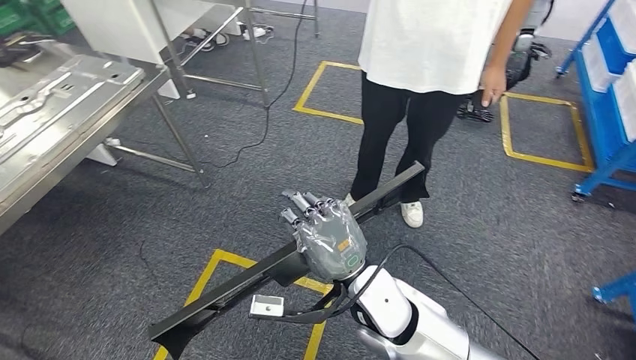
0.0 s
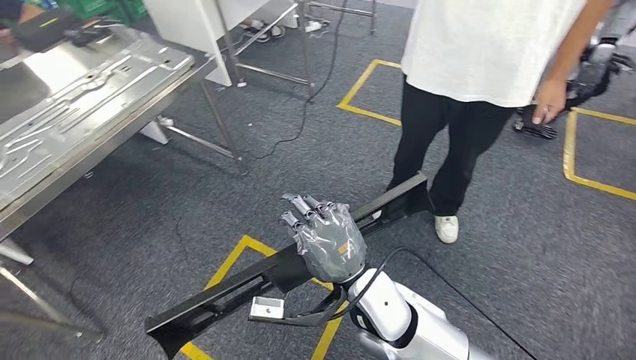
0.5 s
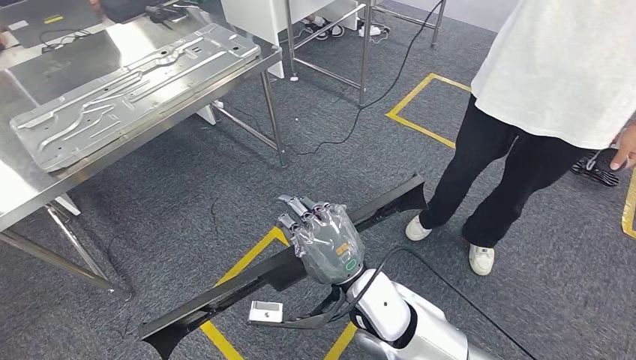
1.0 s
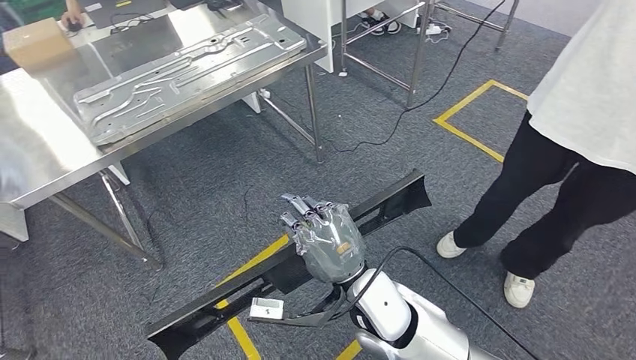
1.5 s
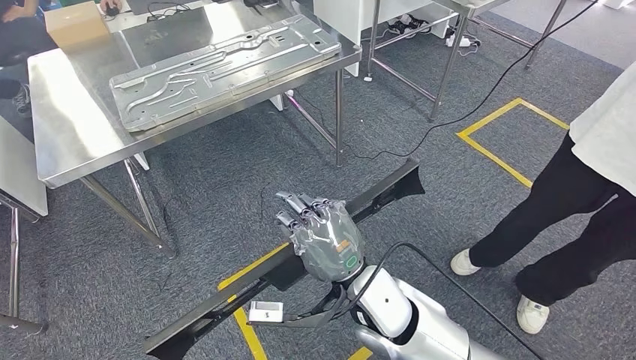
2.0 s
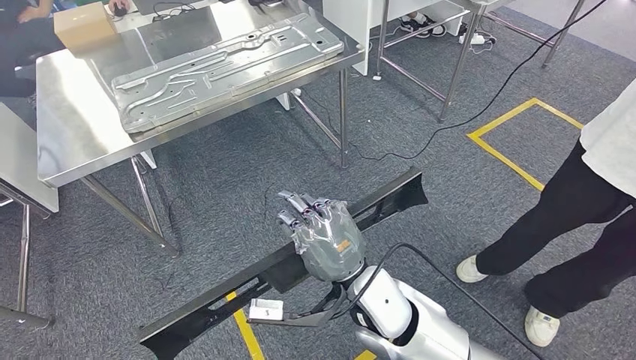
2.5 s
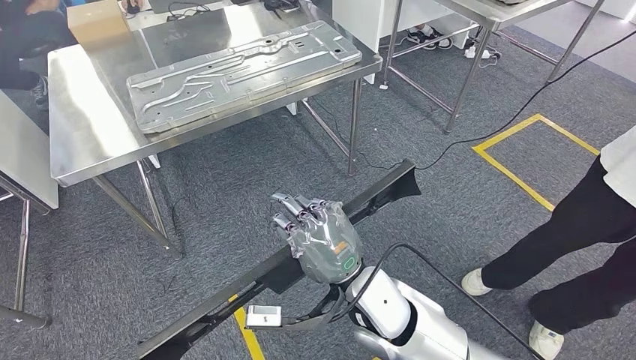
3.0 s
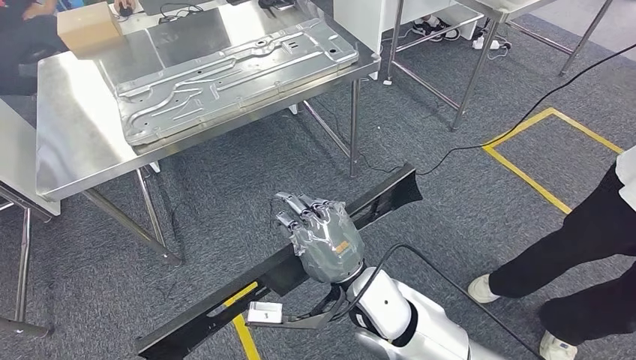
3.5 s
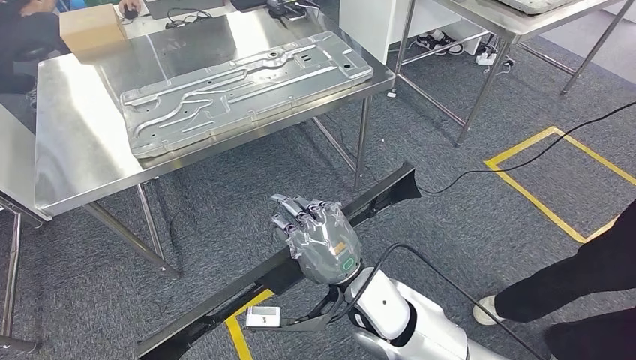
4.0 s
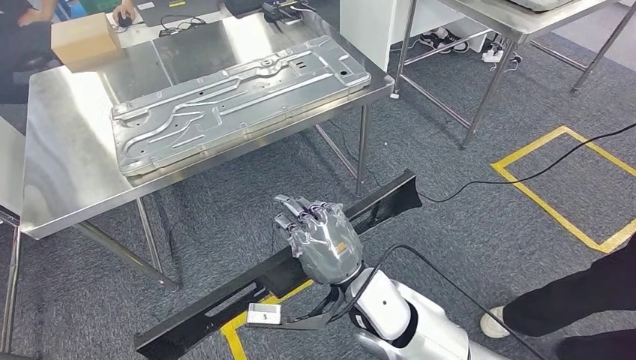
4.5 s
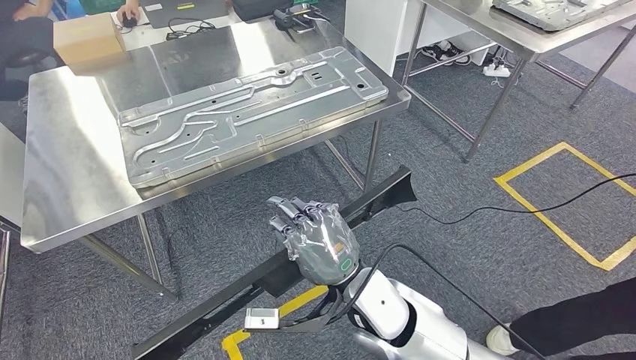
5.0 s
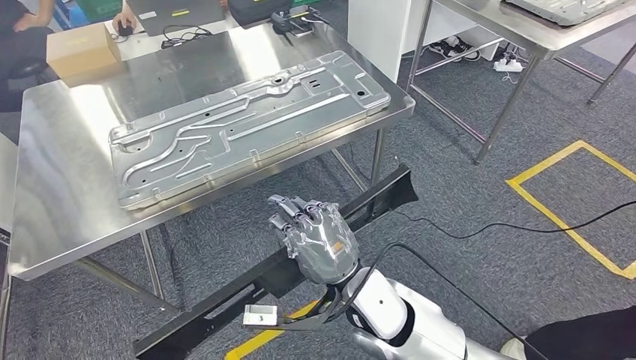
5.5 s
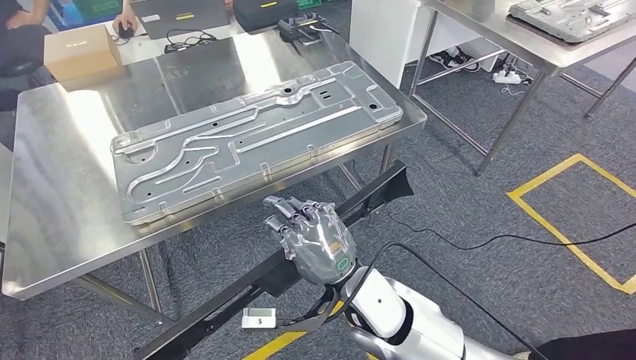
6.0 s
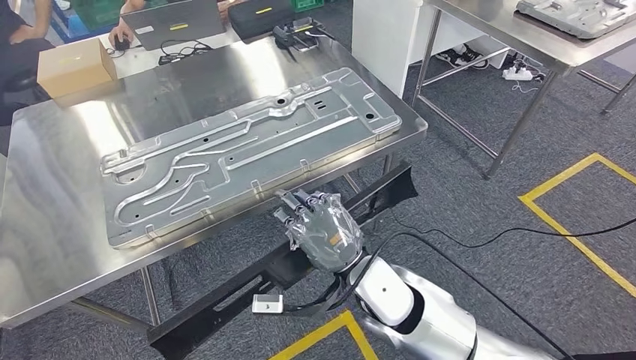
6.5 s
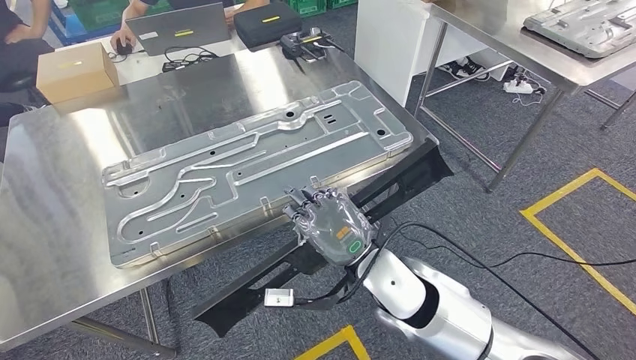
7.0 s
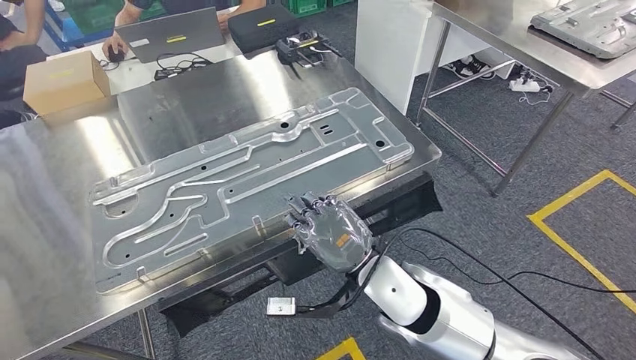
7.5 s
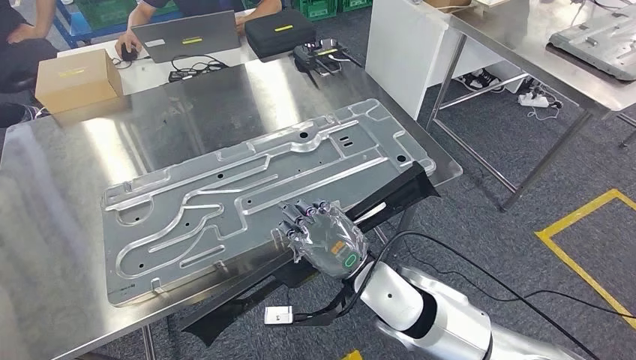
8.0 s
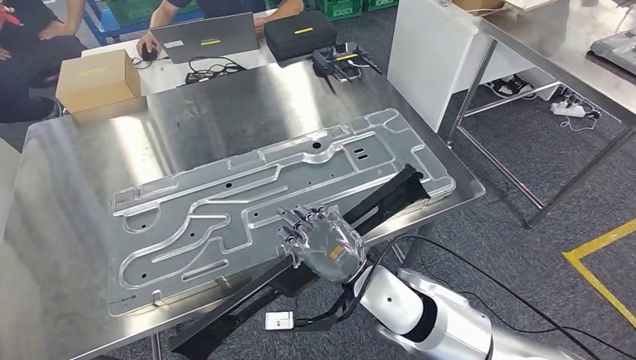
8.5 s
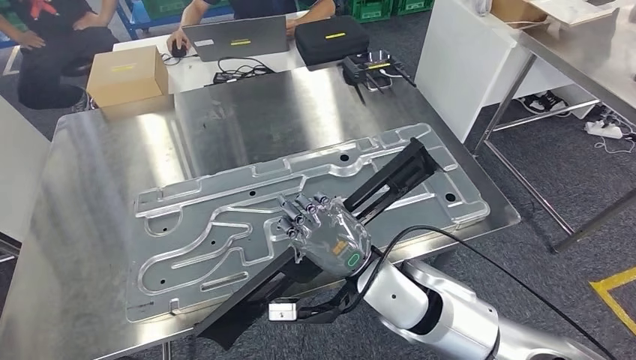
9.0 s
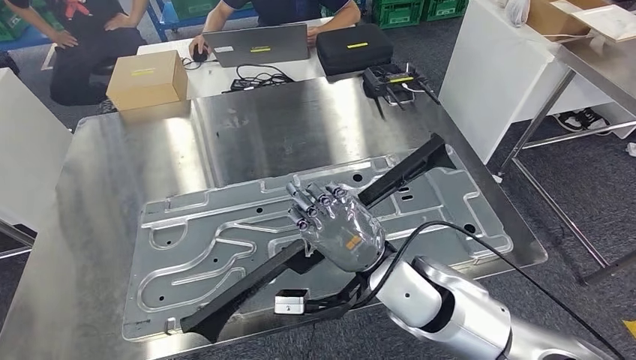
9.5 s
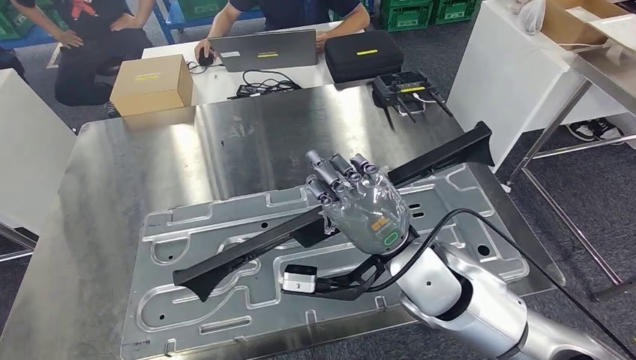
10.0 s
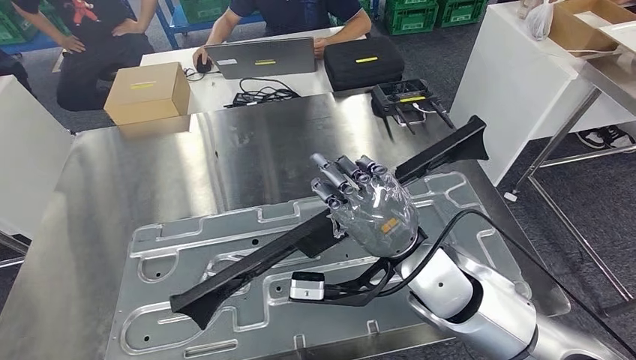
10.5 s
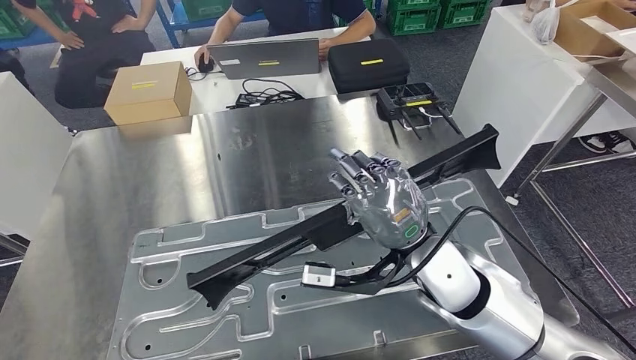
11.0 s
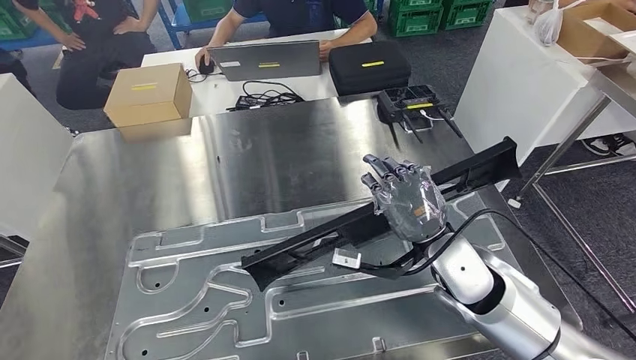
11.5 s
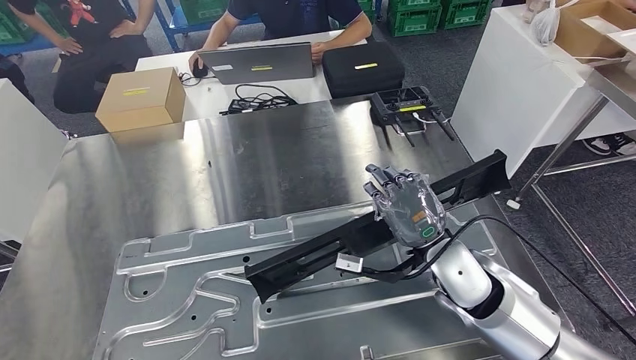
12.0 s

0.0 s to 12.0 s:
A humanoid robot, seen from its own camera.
Step, 0.0 to 7.0 s: Move the large parts to the workbench.

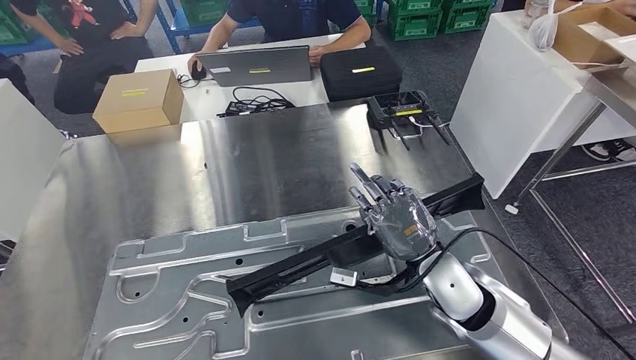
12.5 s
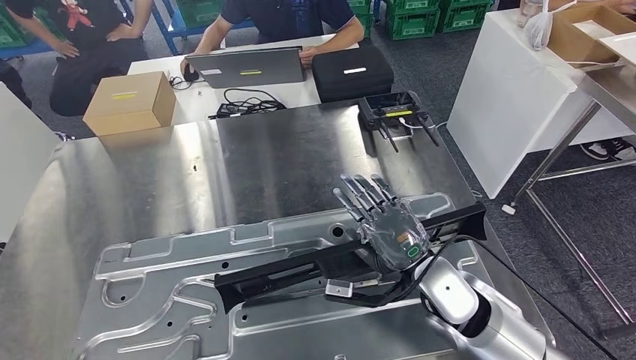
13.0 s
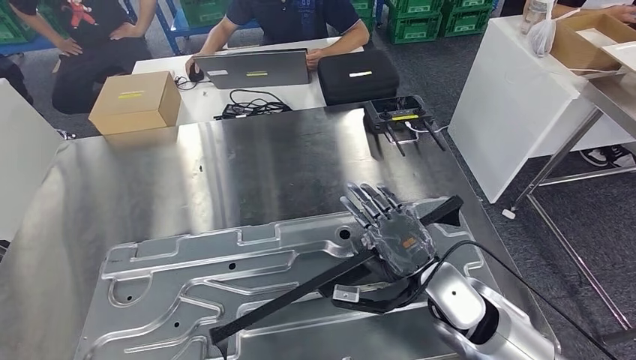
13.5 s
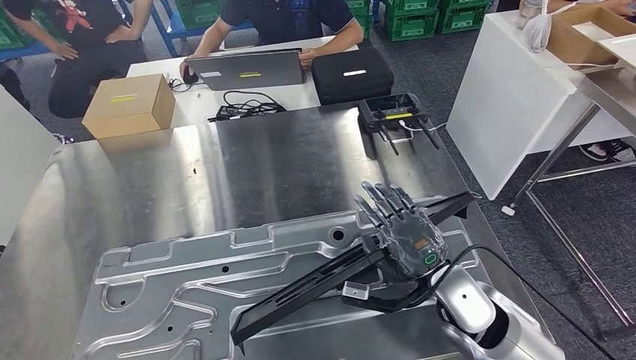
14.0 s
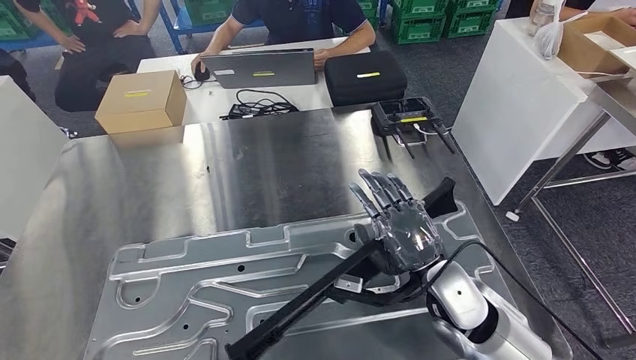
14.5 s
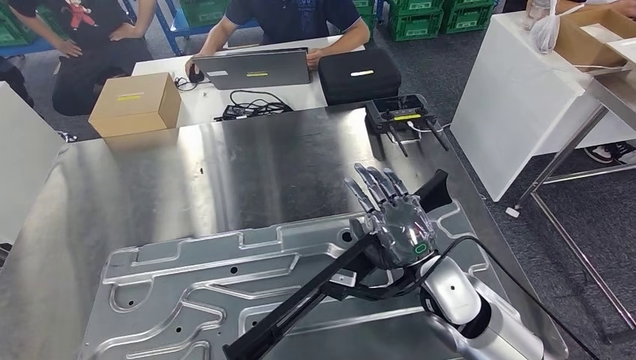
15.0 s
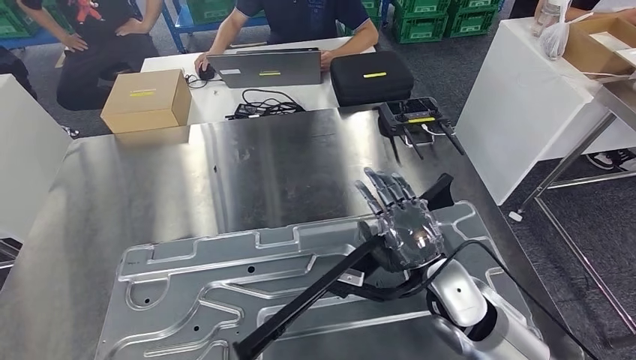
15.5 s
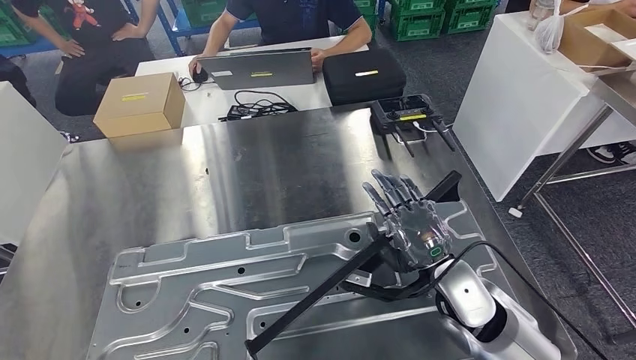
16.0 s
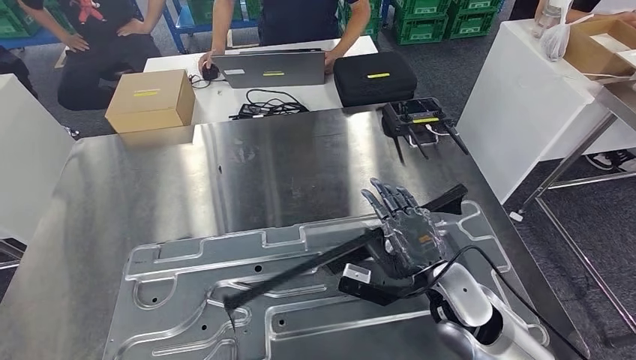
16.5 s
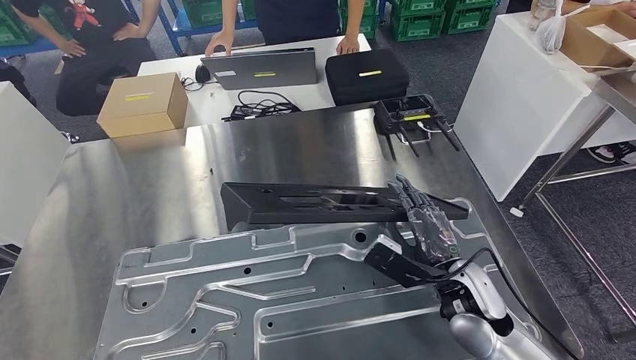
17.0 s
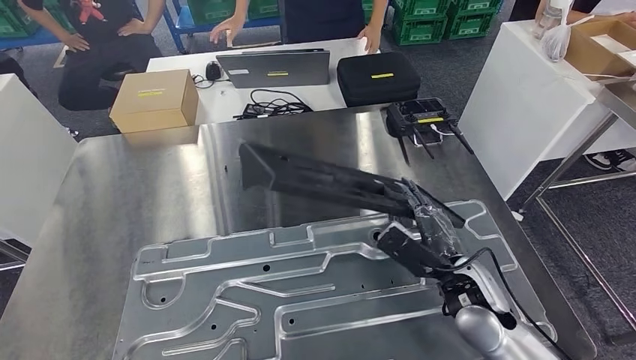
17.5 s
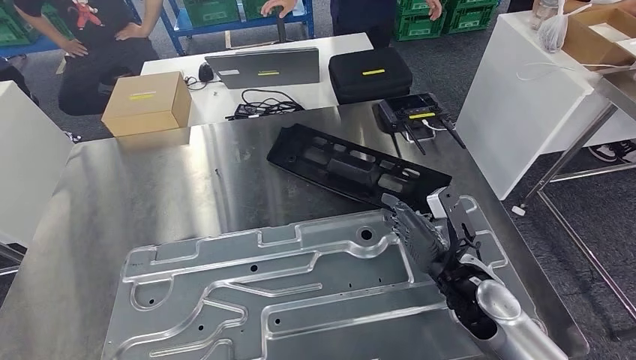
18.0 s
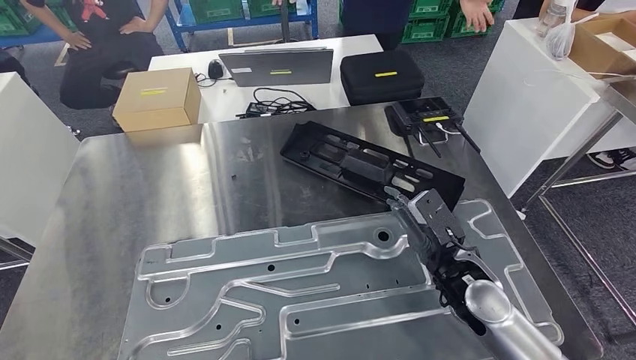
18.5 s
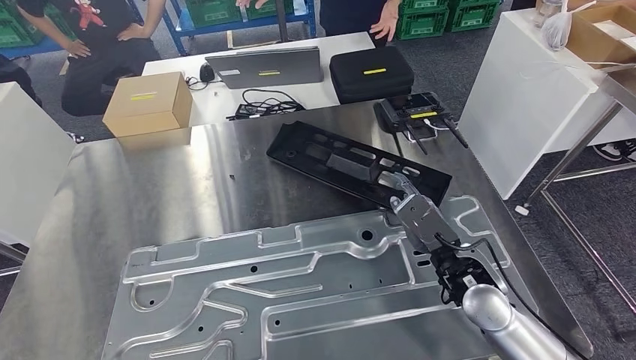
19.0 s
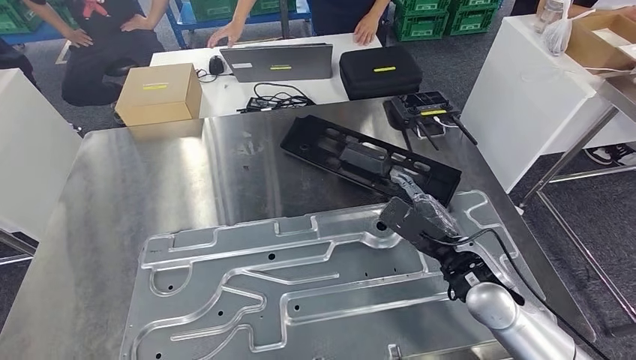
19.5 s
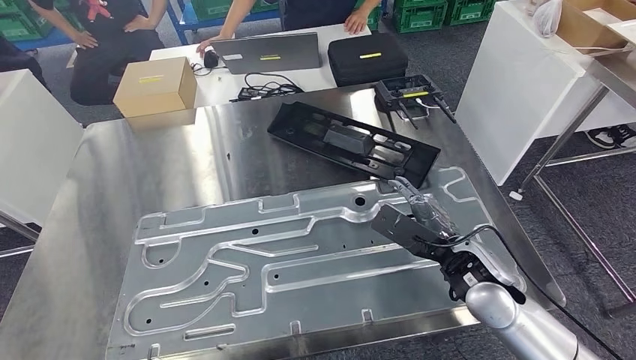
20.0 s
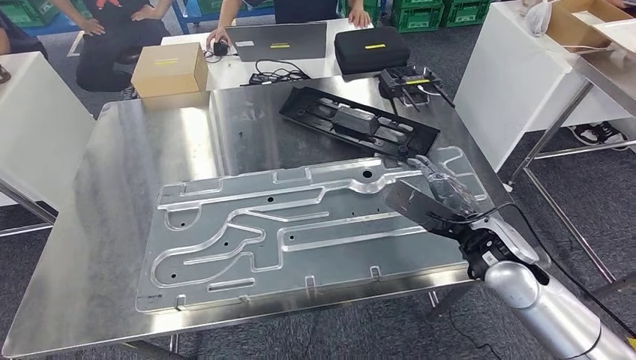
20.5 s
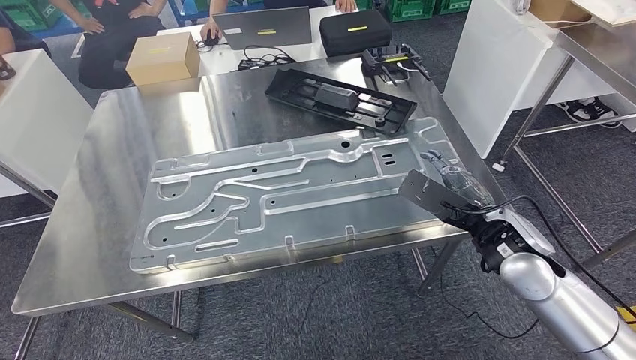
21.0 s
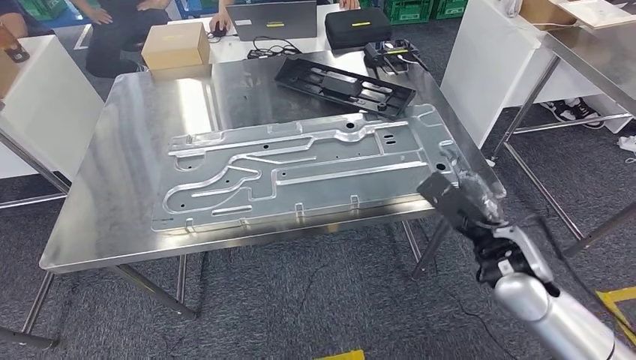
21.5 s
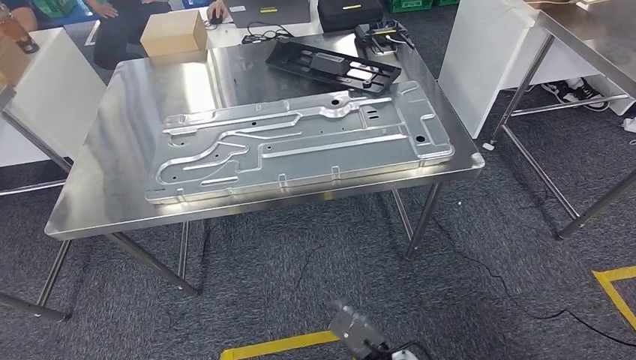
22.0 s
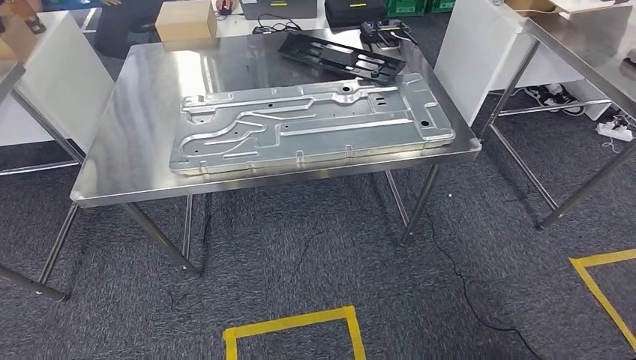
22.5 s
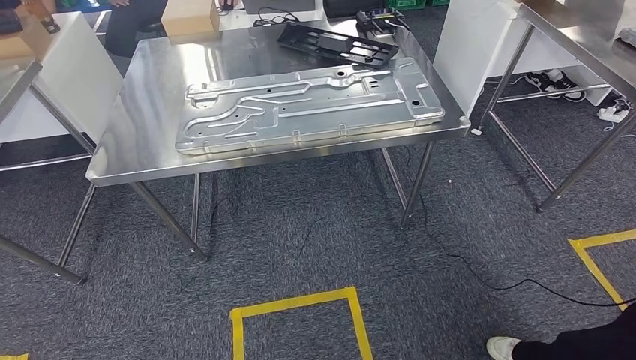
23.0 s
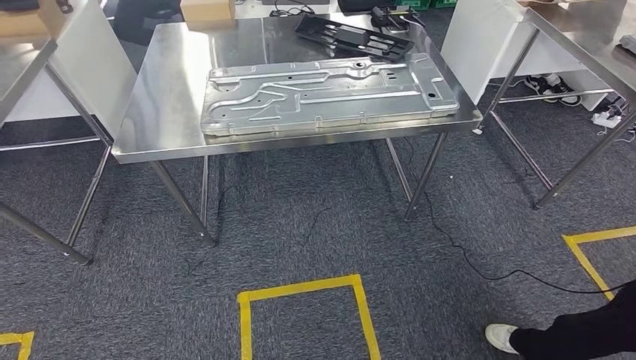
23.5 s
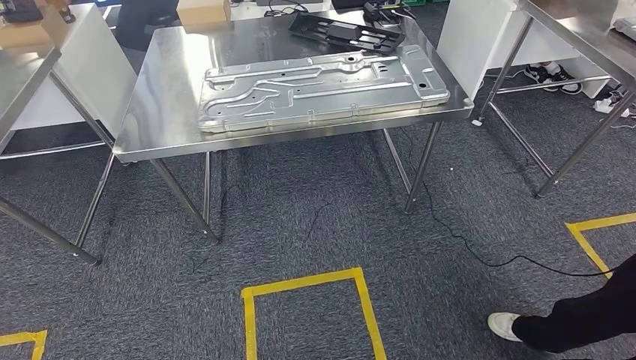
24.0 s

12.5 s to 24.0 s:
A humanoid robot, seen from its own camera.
Step, 12.5 to 22.0 s: Insert the large parts into the corresponding slots on the workbench.
